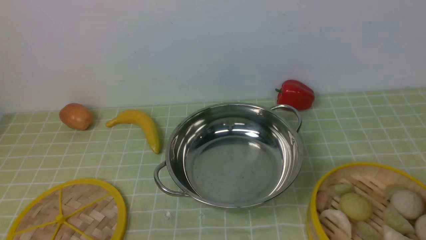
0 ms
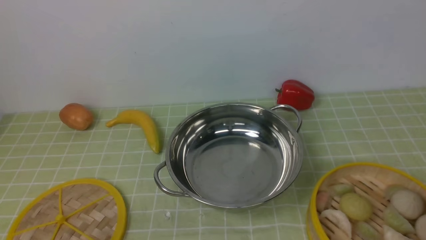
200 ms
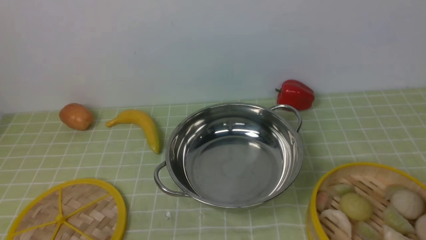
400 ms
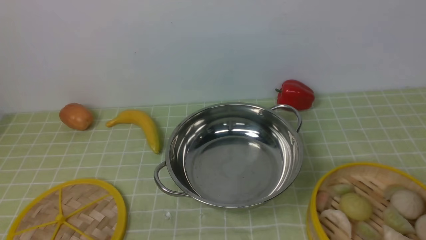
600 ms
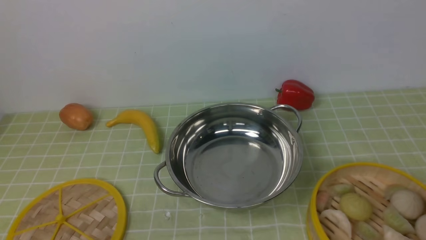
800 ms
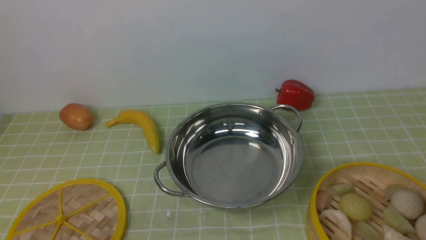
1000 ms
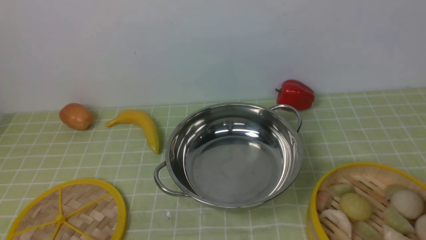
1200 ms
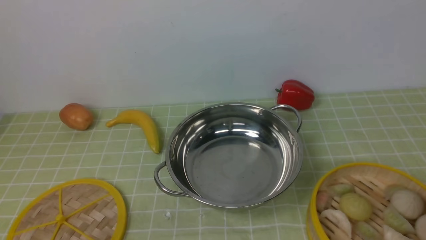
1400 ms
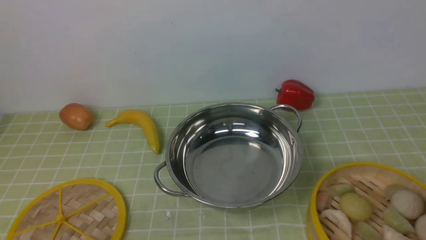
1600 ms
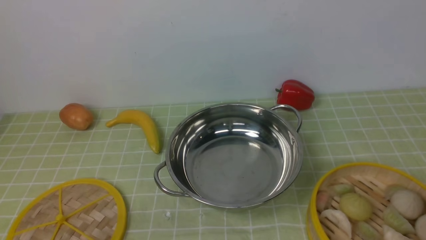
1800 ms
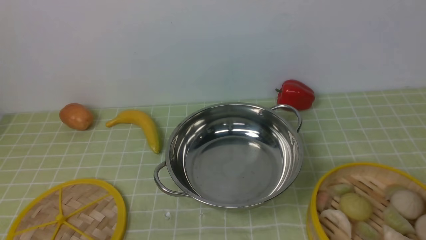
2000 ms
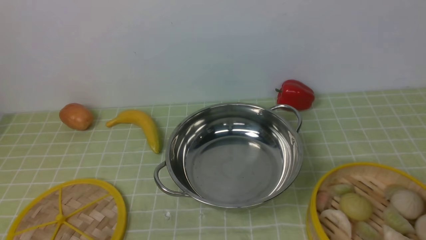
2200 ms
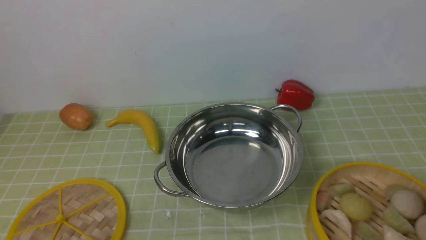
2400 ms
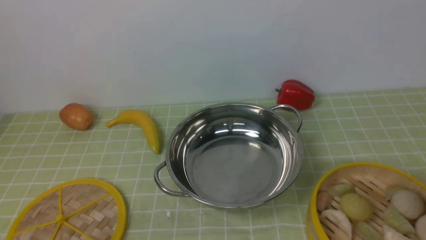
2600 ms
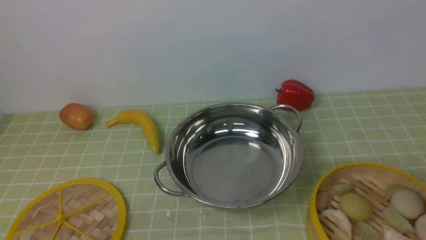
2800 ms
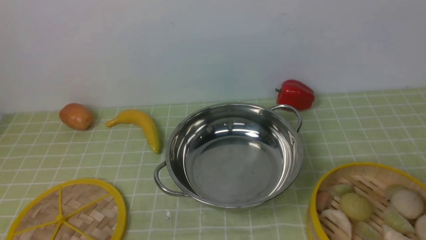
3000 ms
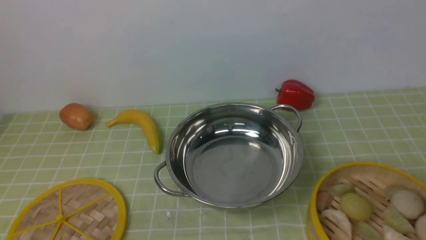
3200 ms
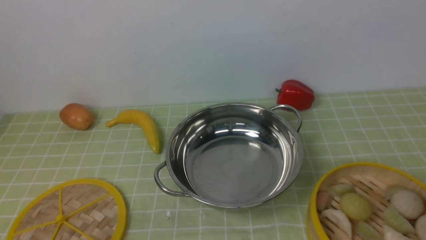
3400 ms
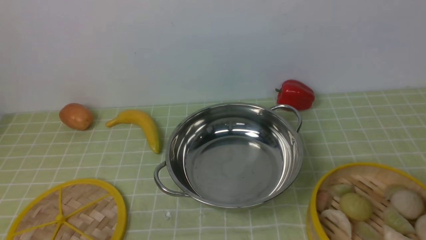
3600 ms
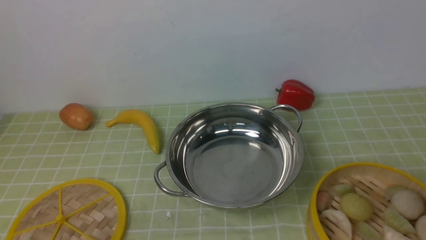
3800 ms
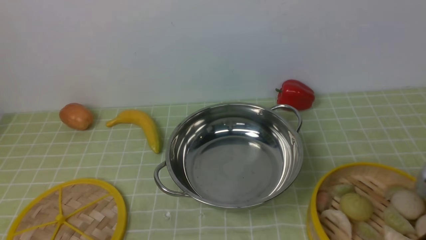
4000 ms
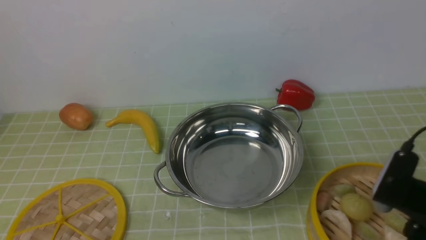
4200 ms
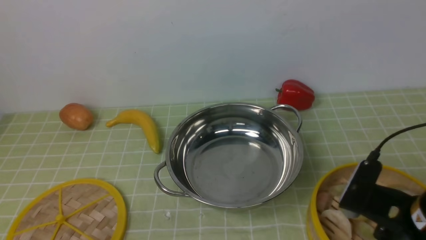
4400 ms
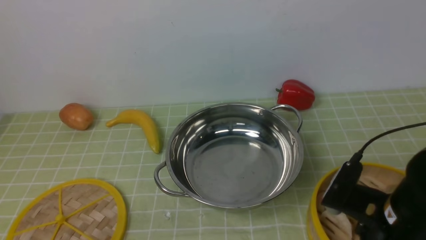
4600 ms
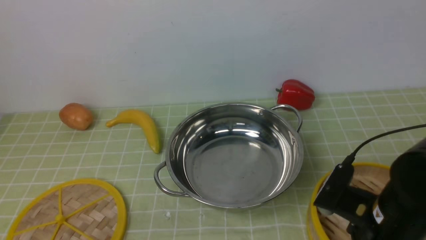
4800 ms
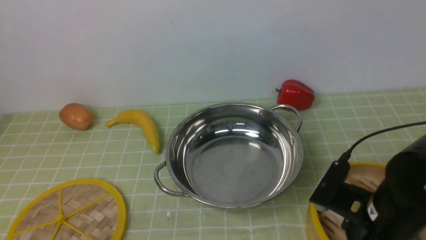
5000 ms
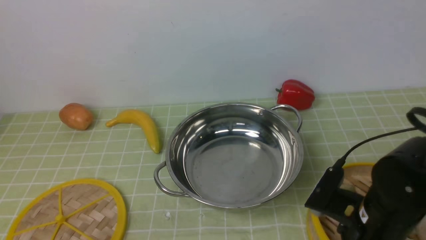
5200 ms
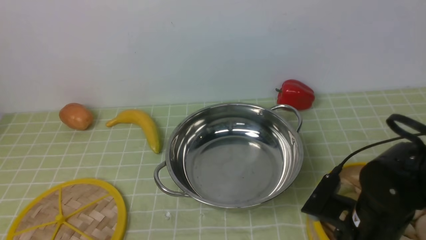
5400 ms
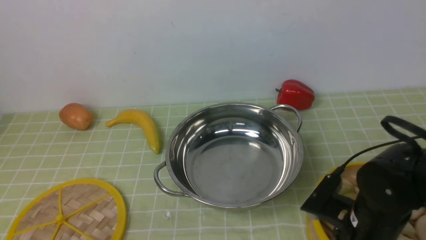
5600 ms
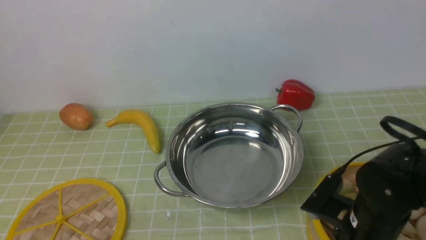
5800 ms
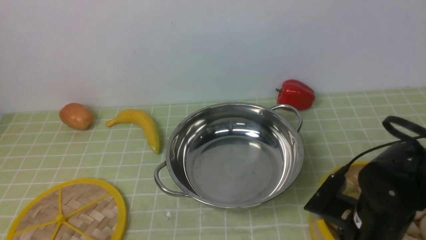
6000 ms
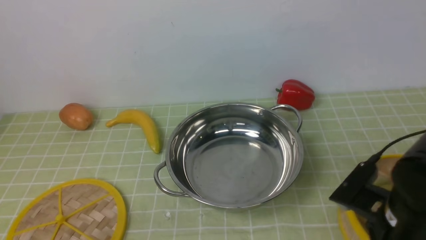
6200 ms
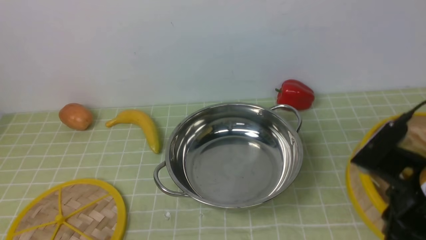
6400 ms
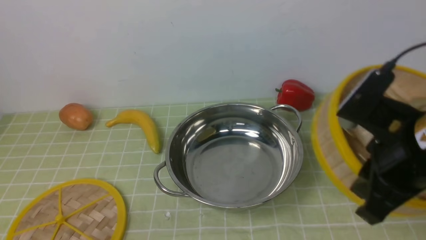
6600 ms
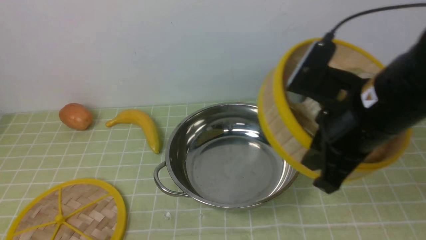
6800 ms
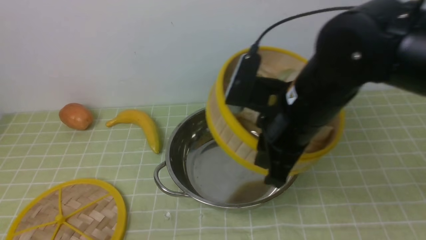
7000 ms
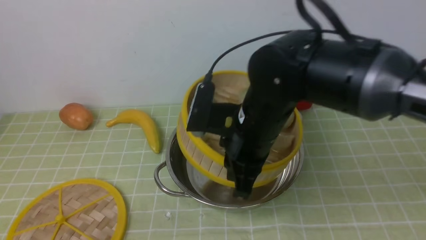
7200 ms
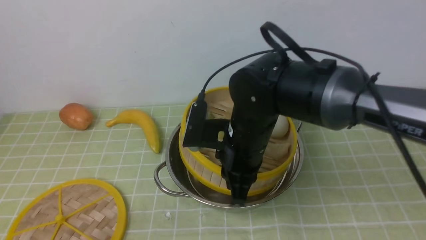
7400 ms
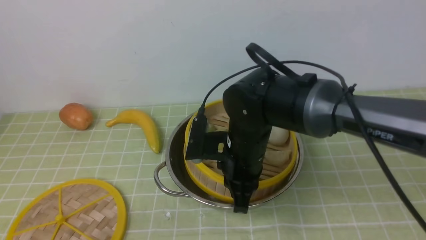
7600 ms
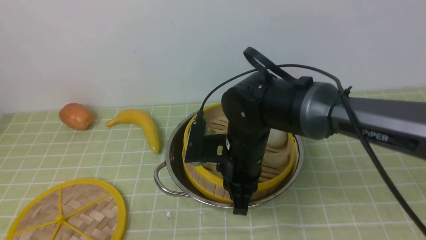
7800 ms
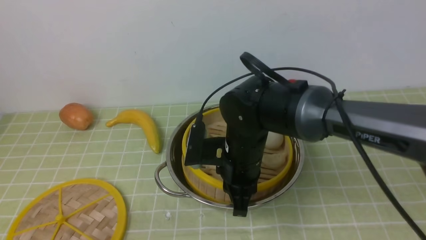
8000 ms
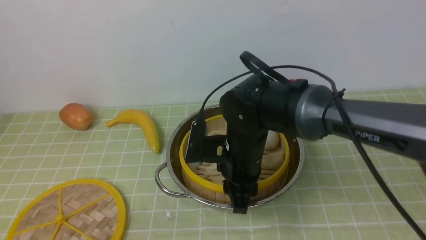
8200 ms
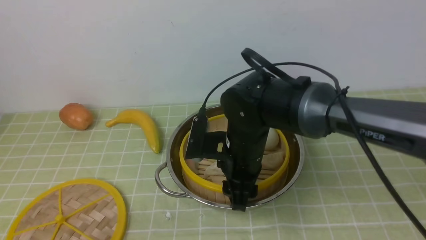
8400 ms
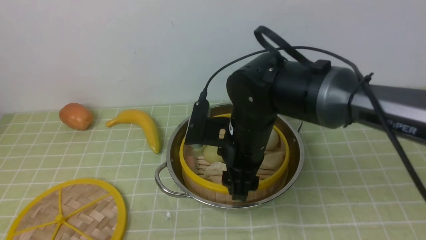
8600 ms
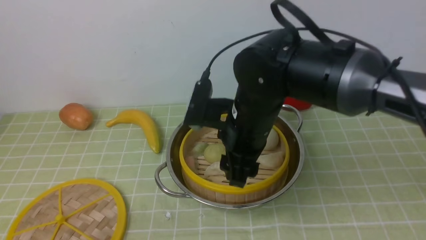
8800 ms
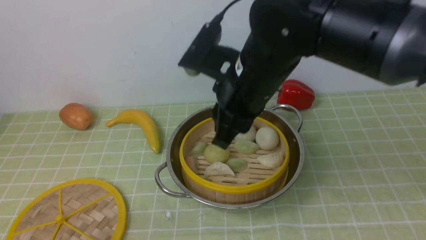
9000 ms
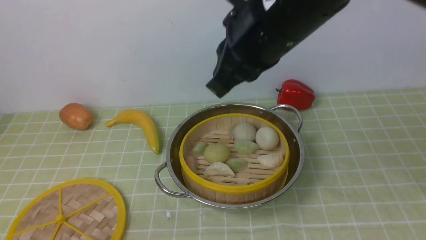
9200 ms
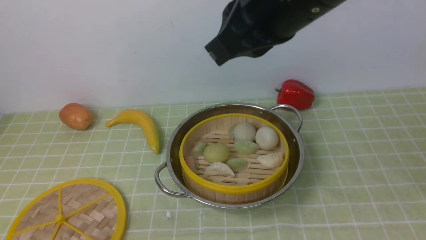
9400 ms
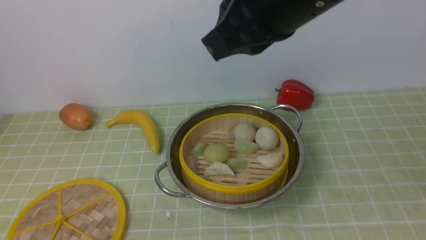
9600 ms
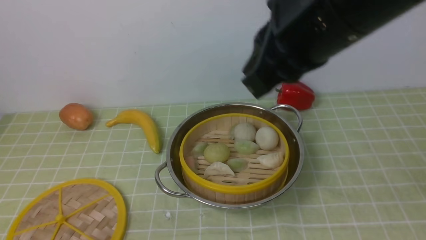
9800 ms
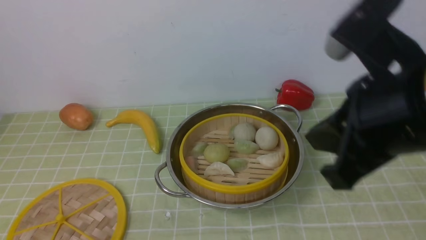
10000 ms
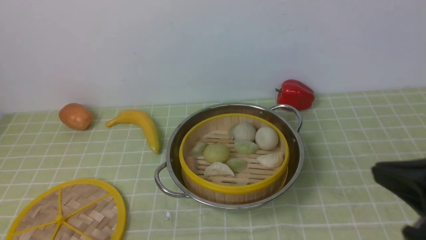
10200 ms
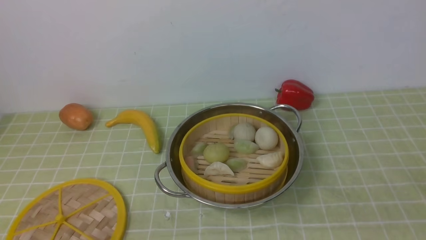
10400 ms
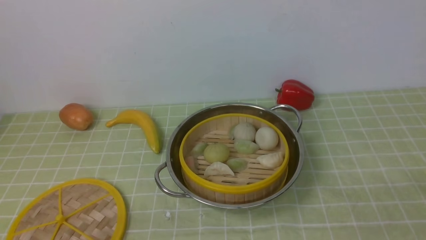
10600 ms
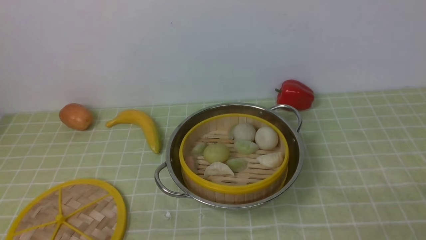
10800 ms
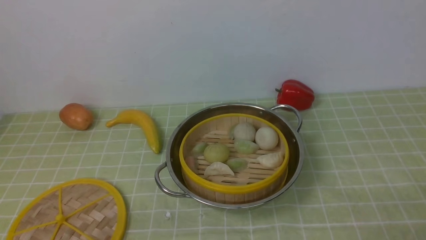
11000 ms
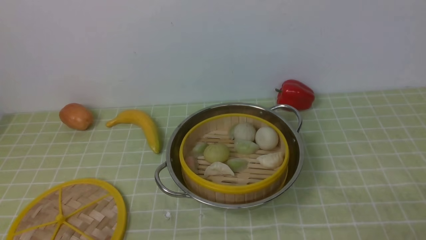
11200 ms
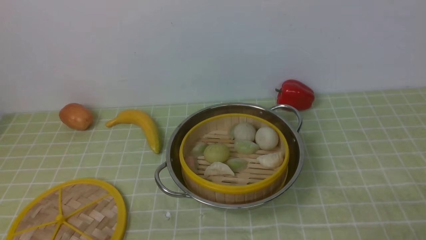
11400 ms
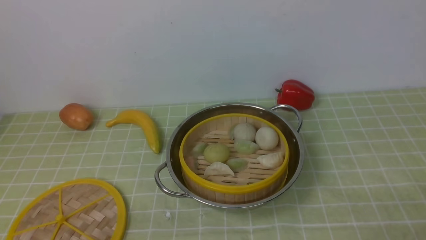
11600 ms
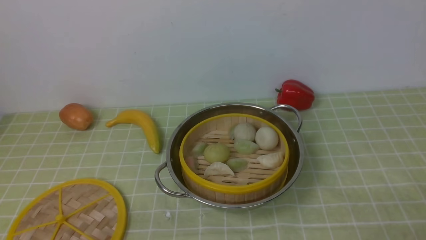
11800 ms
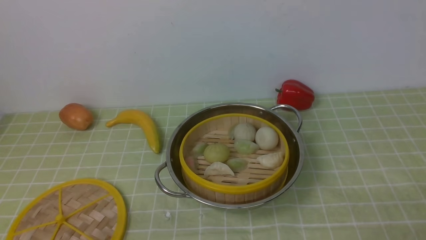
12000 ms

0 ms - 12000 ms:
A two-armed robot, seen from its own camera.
Task of the whole recording: place the steamer in the pot on the green tablecloth, and put the lid on the steamer.
Step, 0 ms - 6400 ms: use the right arm to lift the steamer closest to it.
Step, 6800 ms - 8800 ms: use the right arm to put the steamer into the iron steamer pot in the middle.
3000 ms - 4400 ms: The right gripper travels forward, to the left and downward by some 15 cm.
4400 ms - 6000 ms: The right gripper is displaced downward by roughly 10 cm, and closes its fingers.
6000 ms - 7600 ms: The right gripper is displaced to the left and forward by roughly 20 cm.
7600 ms - 9000 ms: The right gripper travels upward by roughly 10 cm, and opens its fingers.
9000 ms - 10400 ms: The right gripper moves to the right and backward, approximately 30 cm, and closes its fingers.

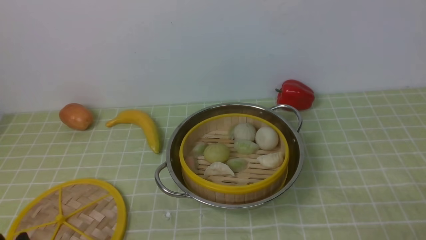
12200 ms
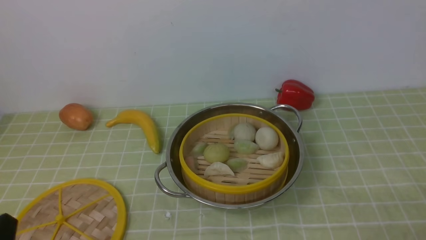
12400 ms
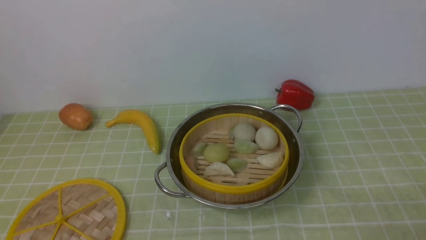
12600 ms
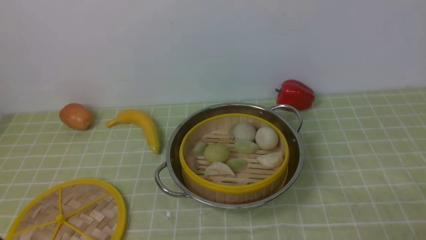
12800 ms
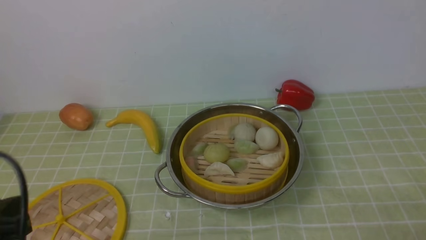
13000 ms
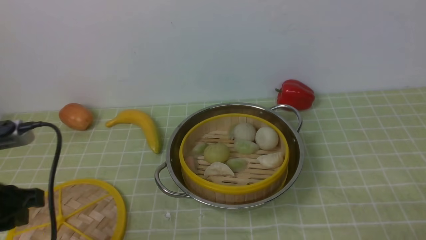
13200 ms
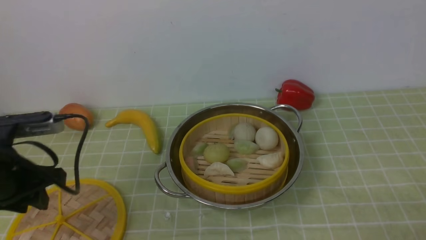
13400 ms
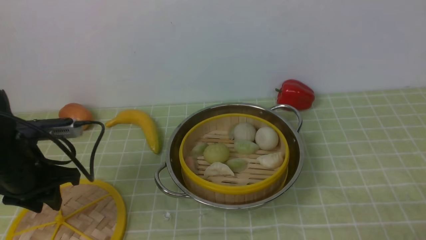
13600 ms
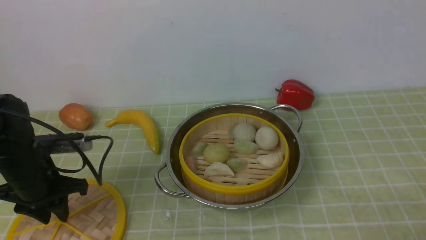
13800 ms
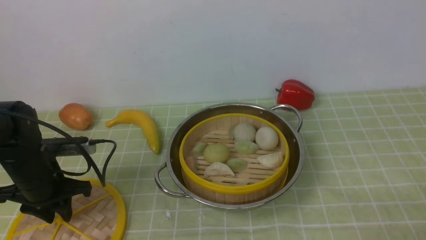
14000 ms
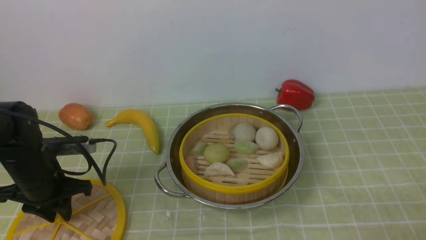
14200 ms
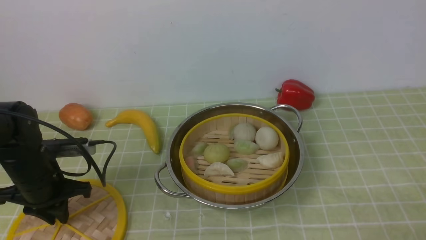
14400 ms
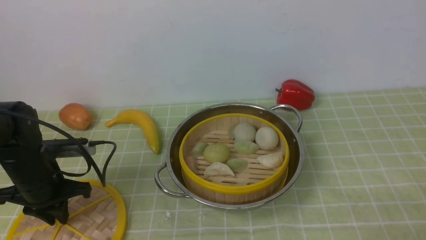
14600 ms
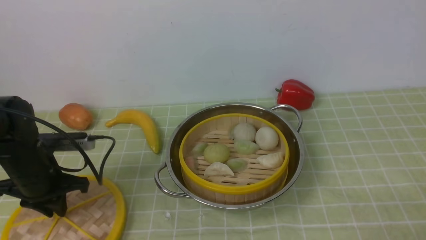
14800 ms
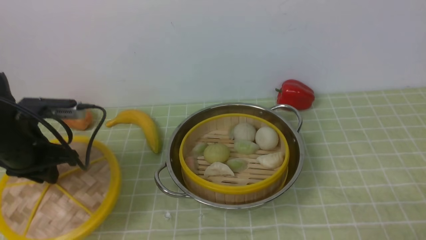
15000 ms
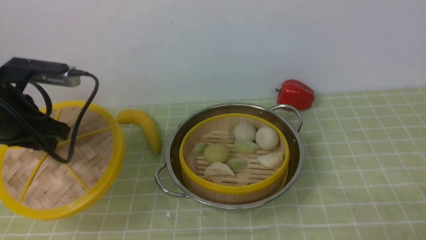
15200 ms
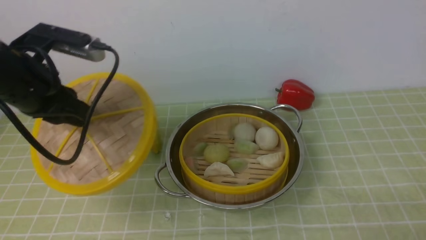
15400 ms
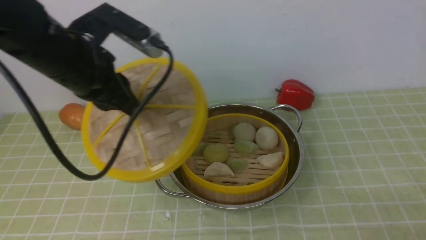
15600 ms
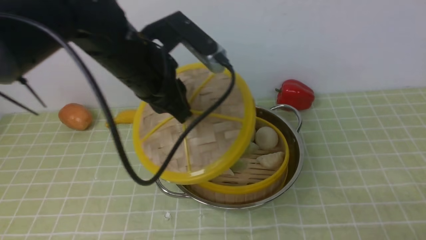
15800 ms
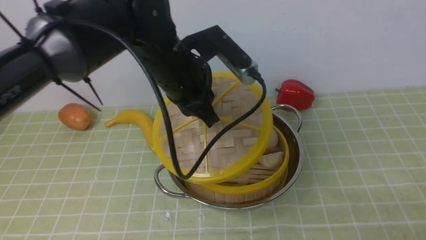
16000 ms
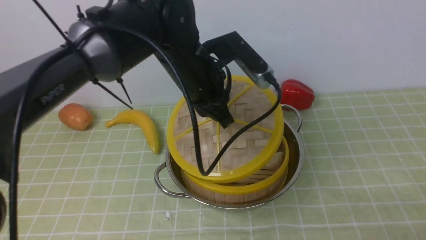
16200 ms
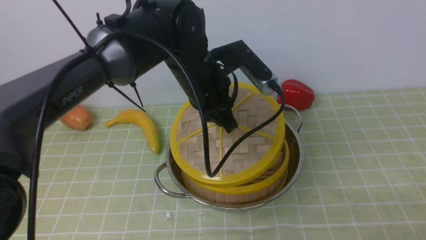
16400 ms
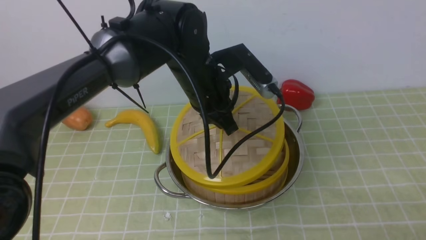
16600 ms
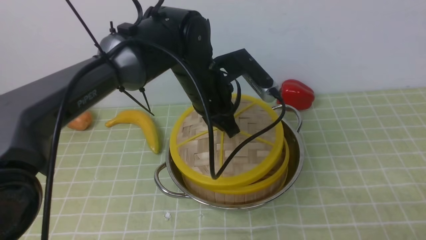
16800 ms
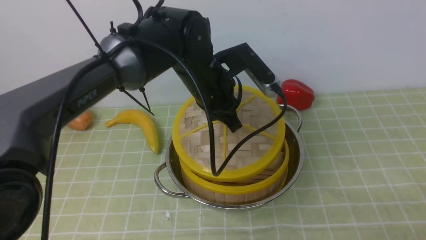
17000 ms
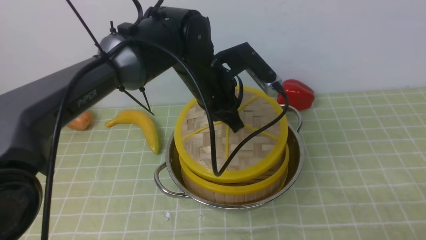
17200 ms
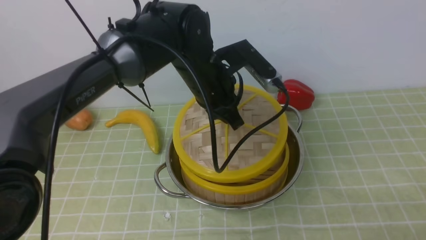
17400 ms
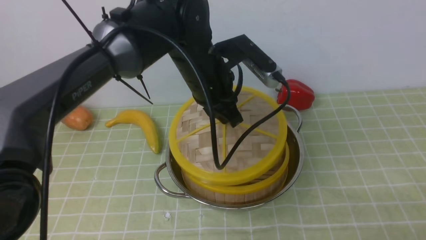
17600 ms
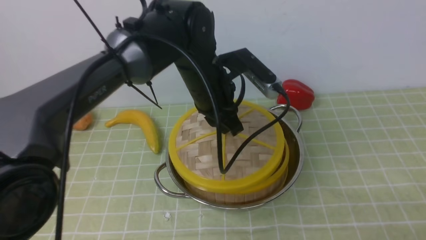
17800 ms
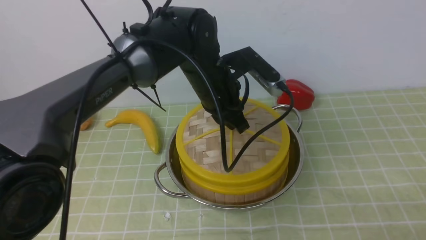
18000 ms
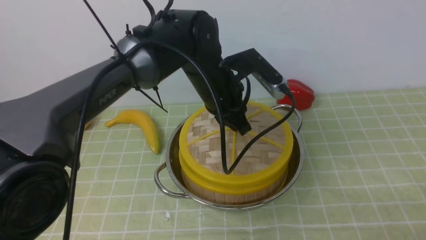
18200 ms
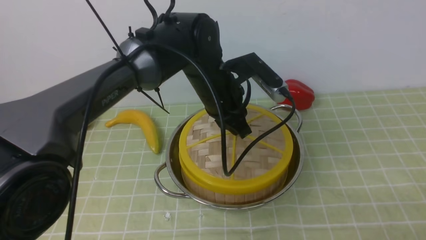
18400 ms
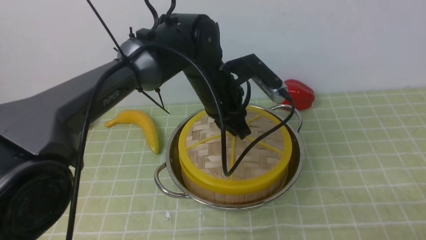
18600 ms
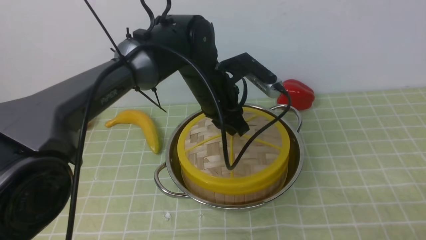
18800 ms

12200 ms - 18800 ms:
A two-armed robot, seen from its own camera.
Task of the whole recording: place the steamer in the pot on the green tablecloth, and put the lid on the steamer.
Step, 12200 ms - 15400 ms: use the left arm to lift the lid of the steamer.
12200 ms - 13800 ms: The left gripper shifts about 25 cm forward.
13800 ms - 15400 ms: The left gripper travels upward by some 10 cm.
15400 ms - 17200 ms: The left gripper travels to the right by roughly 25 cm.
17200 ms - 18800 ms: The grippers stay close to where they were, moving slightly.
